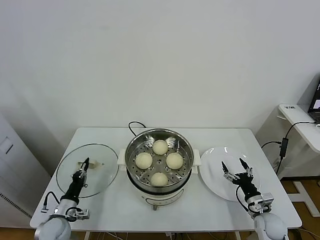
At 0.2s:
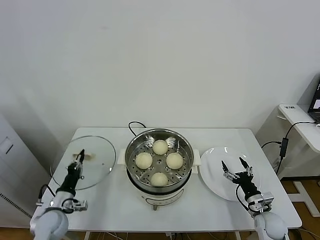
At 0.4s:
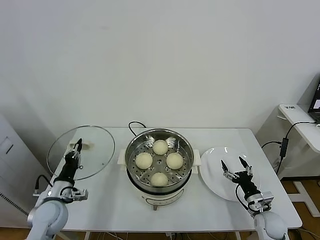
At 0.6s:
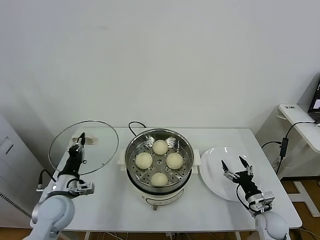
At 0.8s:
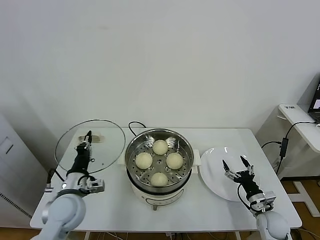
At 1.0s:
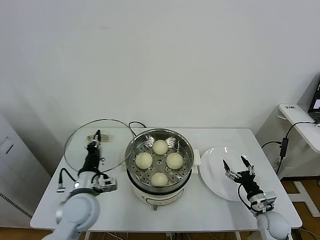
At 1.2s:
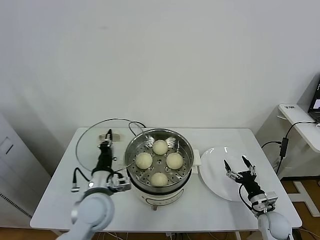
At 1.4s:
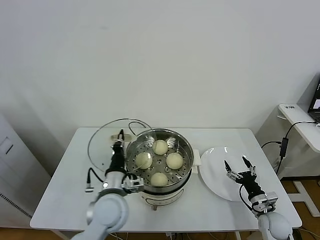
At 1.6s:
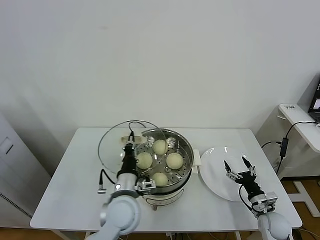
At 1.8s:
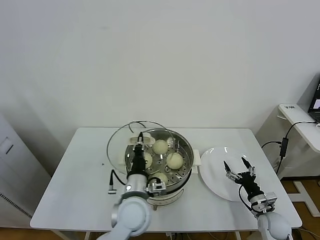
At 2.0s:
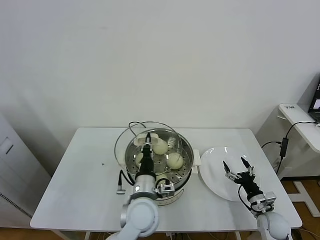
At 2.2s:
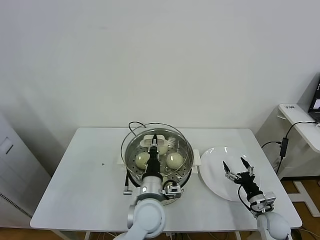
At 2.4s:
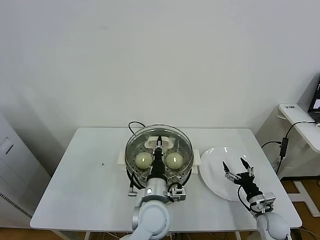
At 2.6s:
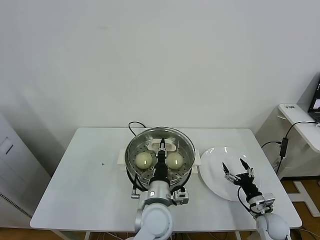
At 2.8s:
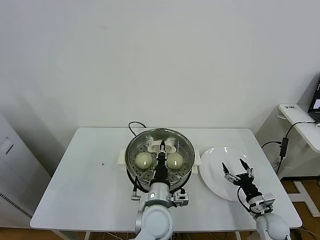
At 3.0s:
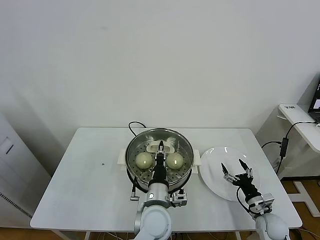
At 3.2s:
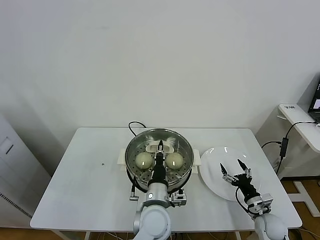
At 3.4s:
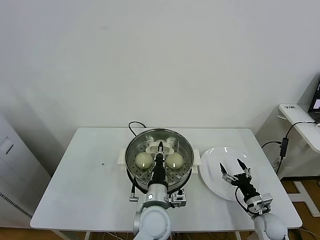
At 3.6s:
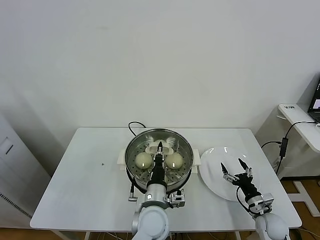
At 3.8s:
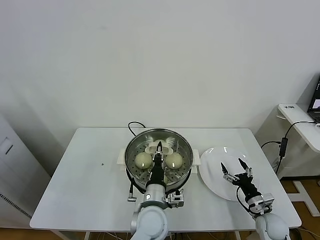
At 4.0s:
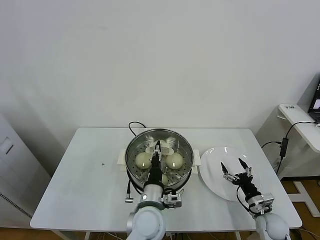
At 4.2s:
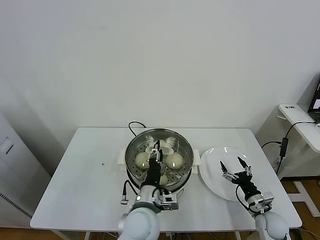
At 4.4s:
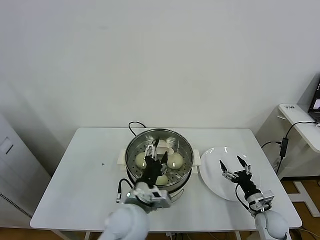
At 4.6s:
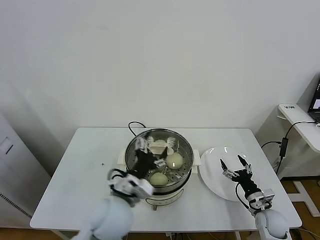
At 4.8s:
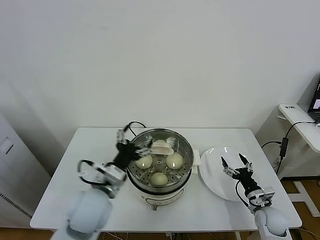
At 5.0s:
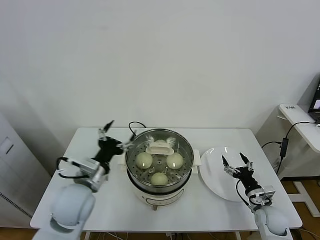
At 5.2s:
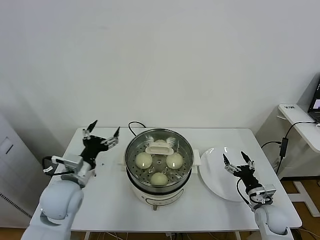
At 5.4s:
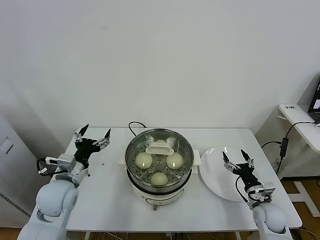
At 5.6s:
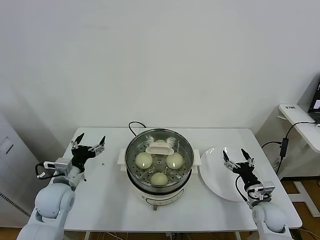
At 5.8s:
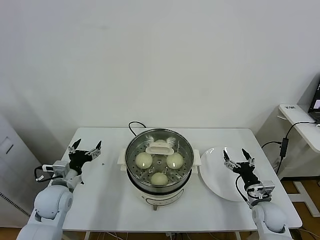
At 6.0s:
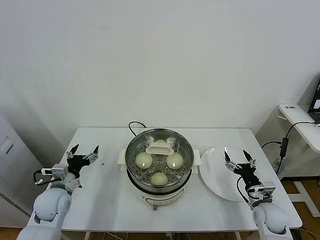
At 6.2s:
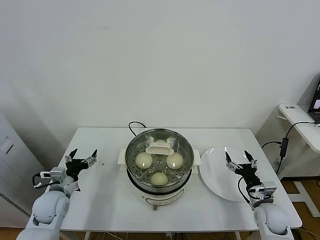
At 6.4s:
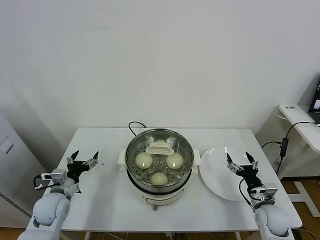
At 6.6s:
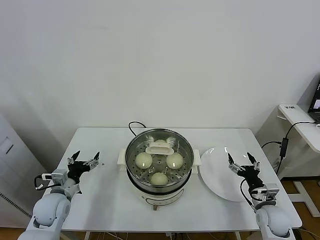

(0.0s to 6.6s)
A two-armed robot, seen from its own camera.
Task of the whole recording: take steamed baozi put them in steamer.
Step, 0.0s - 4.6s: Place the pot lid on the steamer with left gripper.
0.0s - 1.6s: The left gripper heads to the right and upward, covering approximately 30 cm.
1.6s - 3.2s: The left gripper is displaced to the right by approximately 10 cm.
3.2s - 5.0s: The left gripper is displaced to the left and upward by some 20 cm, and opens its fingers.
5.0s - 6.6s: The left gripper heads to the left and downward, covering some 20 cm.
